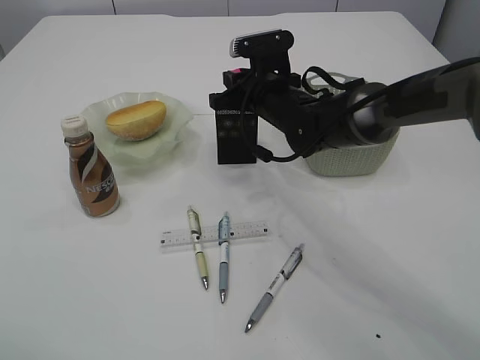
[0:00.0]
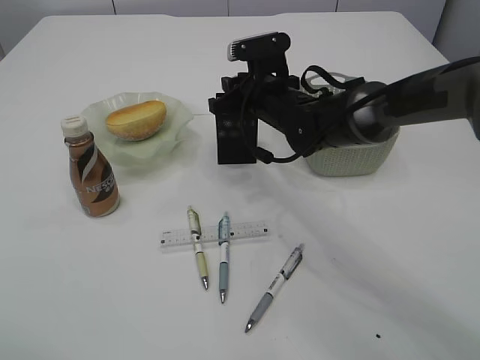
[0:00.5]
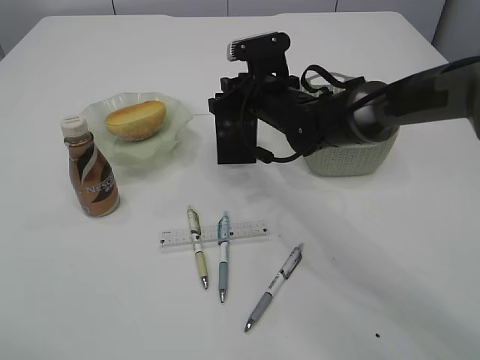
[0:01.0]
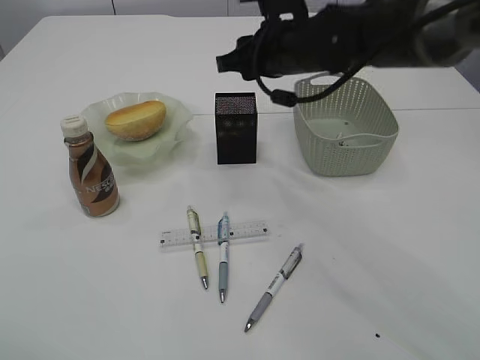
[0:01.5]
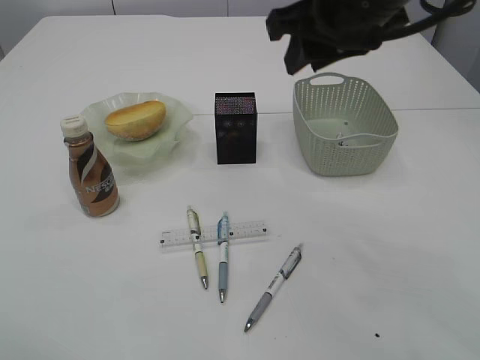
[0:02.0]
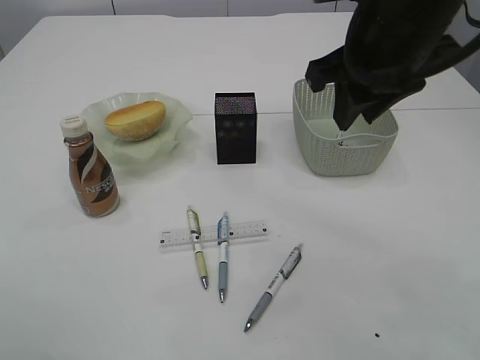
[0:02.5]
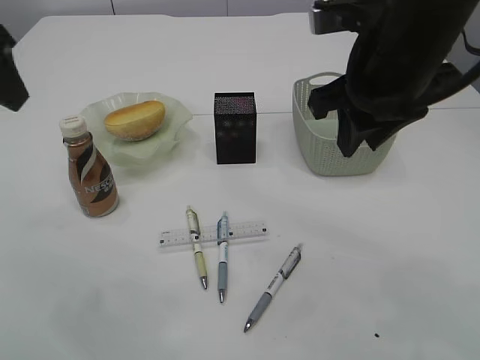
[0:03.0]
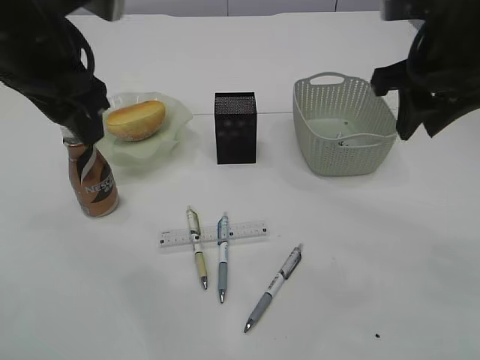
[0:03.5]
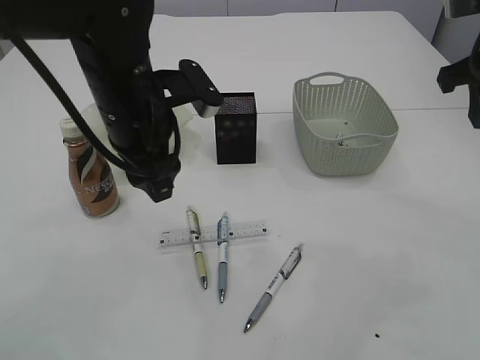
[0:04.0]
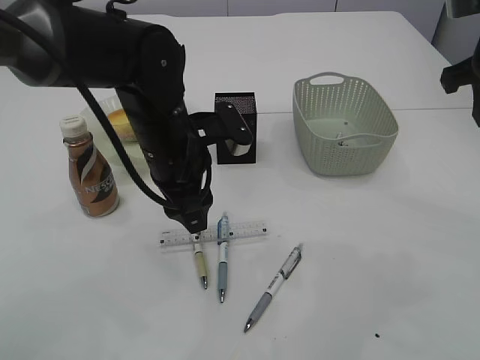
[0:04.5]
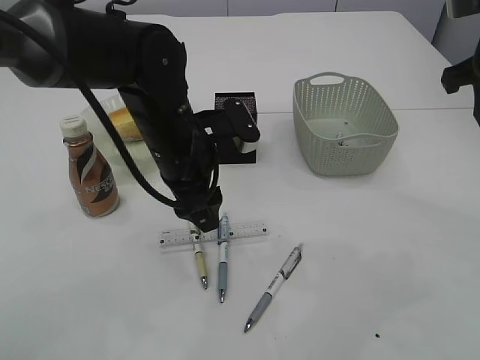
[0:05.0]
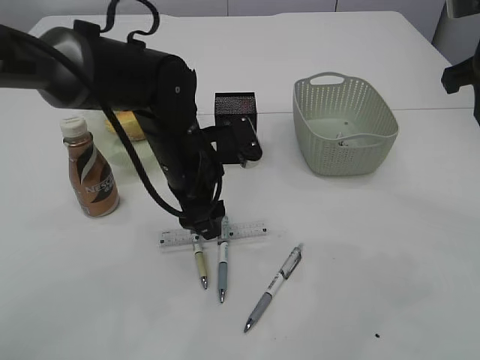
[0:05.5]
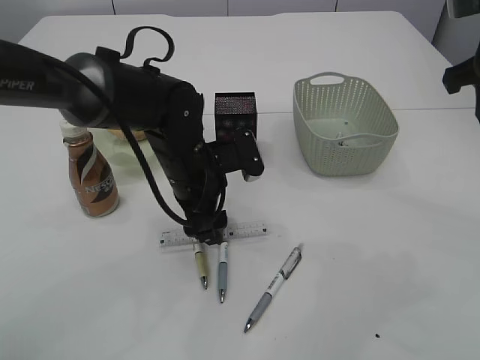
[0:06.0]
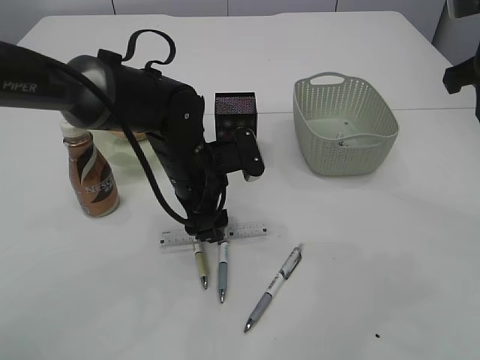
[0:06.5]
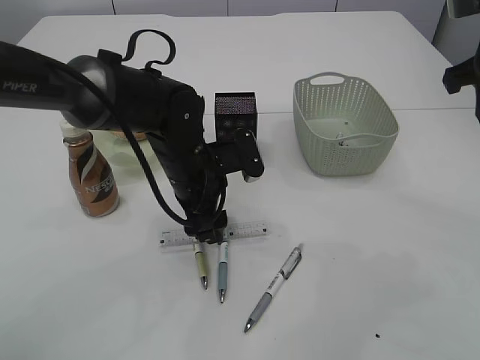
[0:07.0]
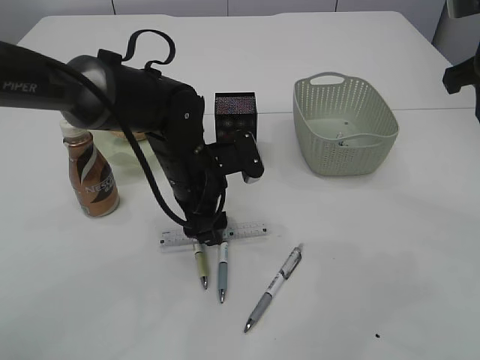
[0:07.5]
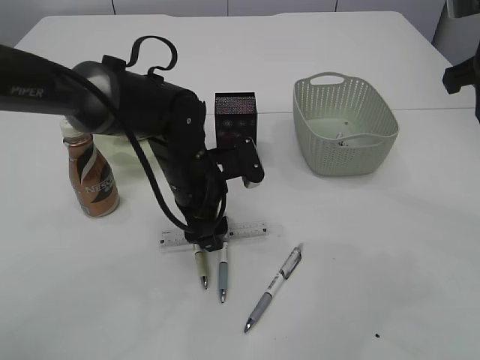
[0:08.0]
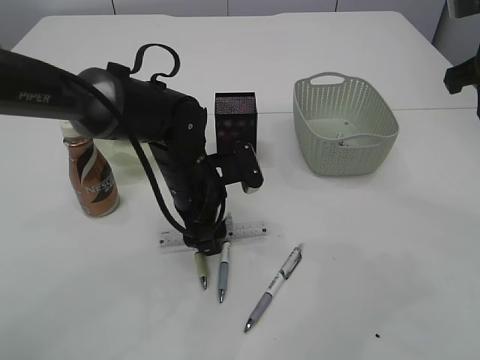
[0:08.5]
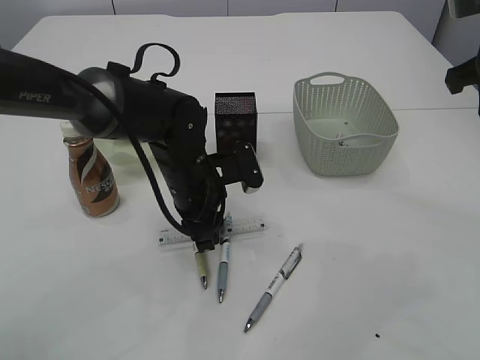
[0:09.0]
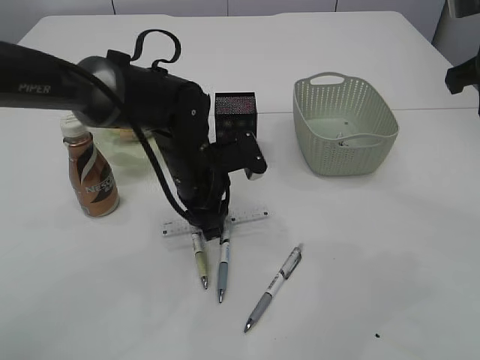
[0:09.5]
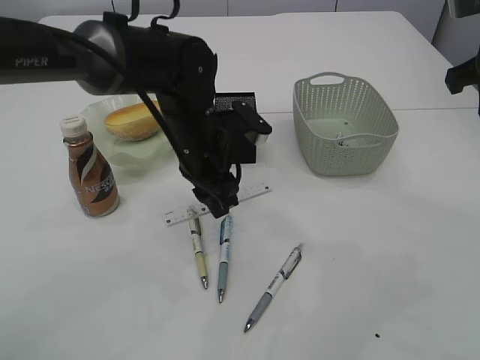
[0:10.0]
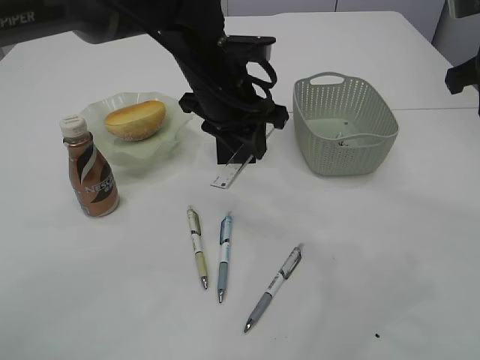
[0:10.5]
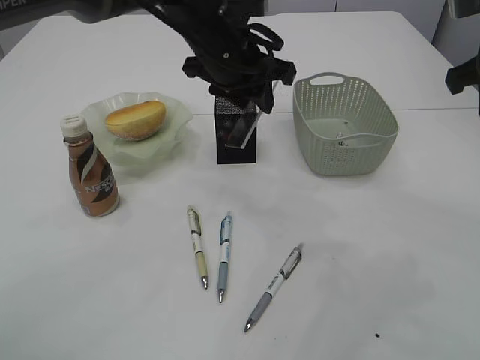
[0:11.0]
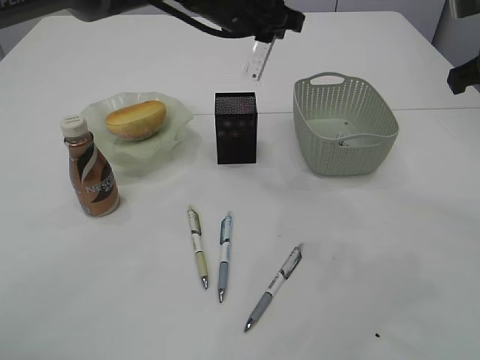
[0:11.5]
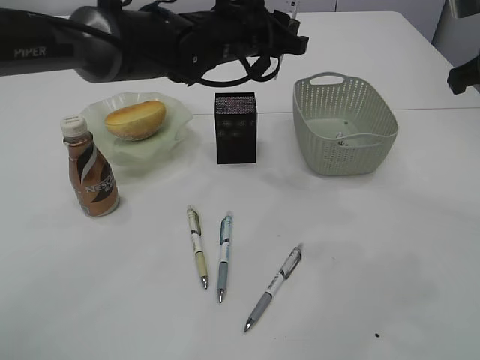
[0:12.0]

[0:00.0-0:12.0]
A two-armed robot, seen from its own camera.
Step, 2.0 to 10.0 s: pick up the ruler.
0.0 to 2.0 s: The right gripper goes approximately 20 cm upward and backward.
2.0 to 4.0 s: The left gripper travels to the right, forward and downward by roughly 25 cm. The right gripper shifts approximately 15 cm to the right.
4.0 to 6.0 s: The left gripper is displaced downward by some 10 cm.
6.0 to 8.0 s: Both grippers stay about where they are.
8.0 to 10.0 s: The left gripper closes.
10.0 to 12.0 s: The left gripper moves upward and forward, about 10 cm.

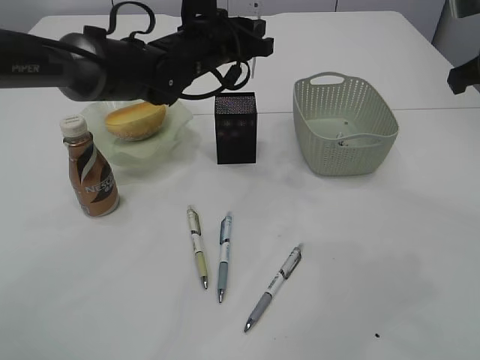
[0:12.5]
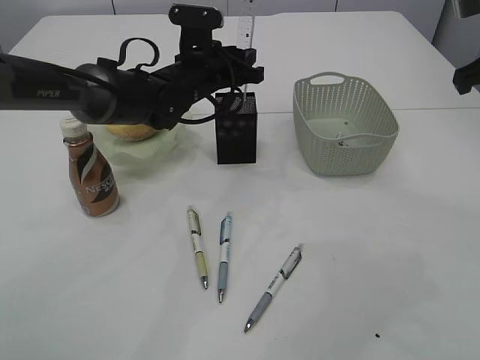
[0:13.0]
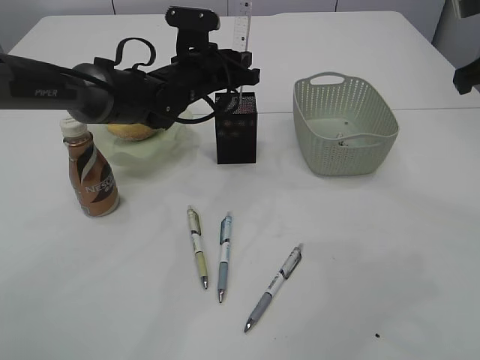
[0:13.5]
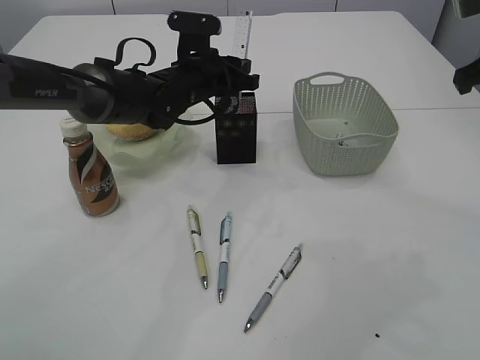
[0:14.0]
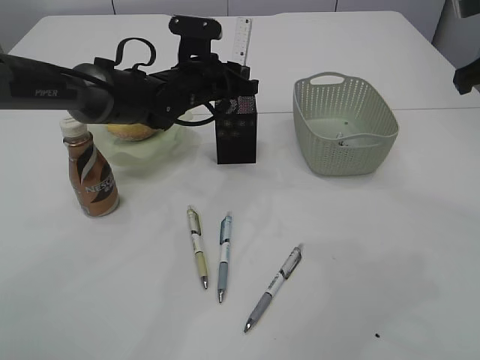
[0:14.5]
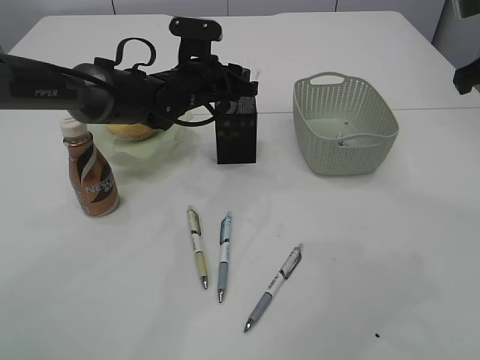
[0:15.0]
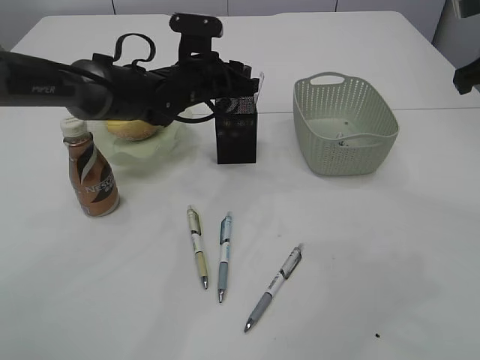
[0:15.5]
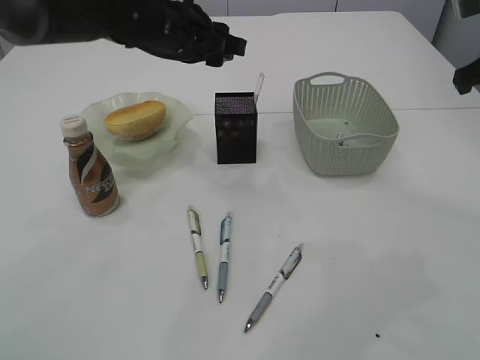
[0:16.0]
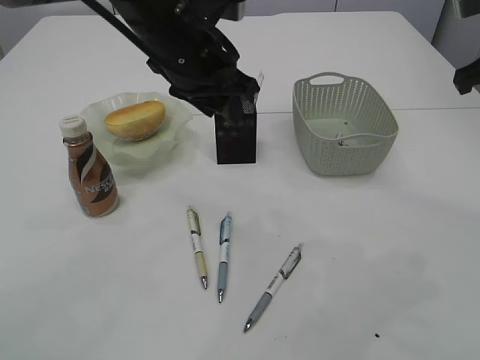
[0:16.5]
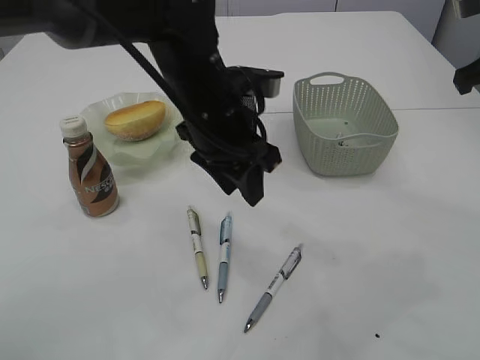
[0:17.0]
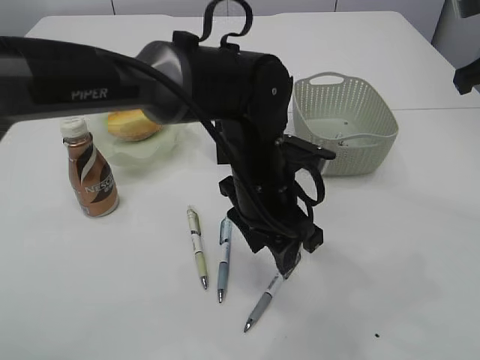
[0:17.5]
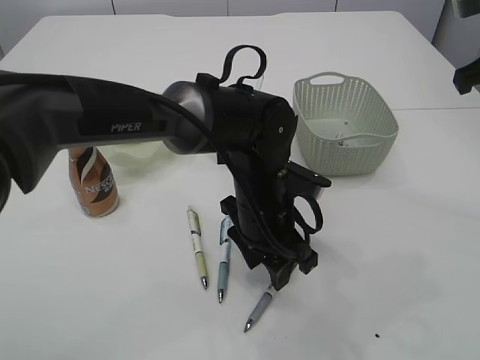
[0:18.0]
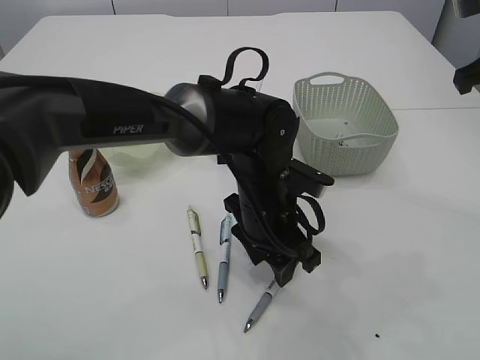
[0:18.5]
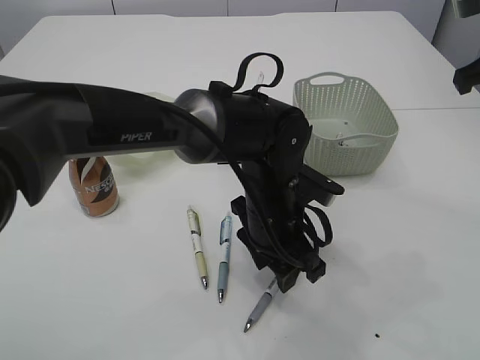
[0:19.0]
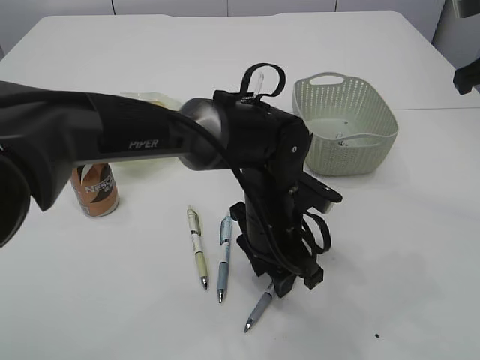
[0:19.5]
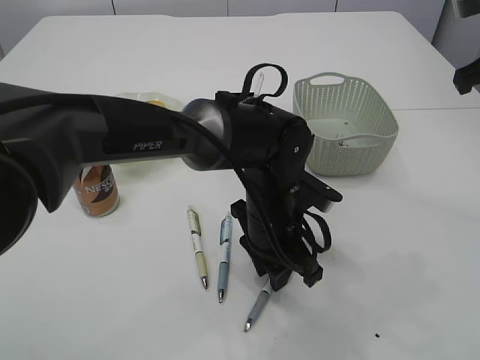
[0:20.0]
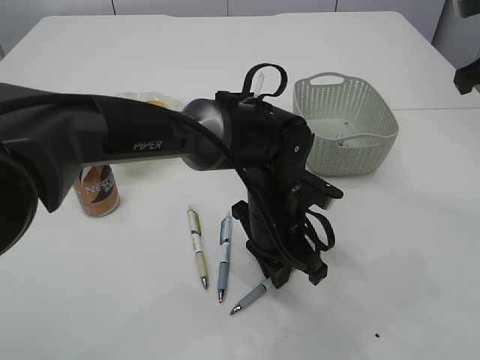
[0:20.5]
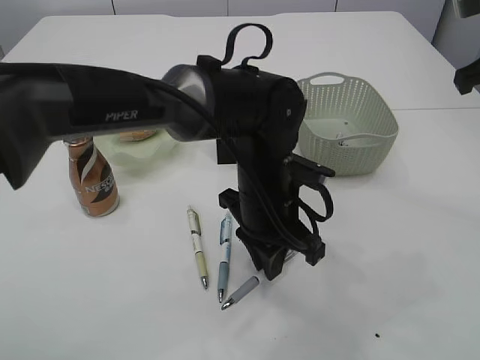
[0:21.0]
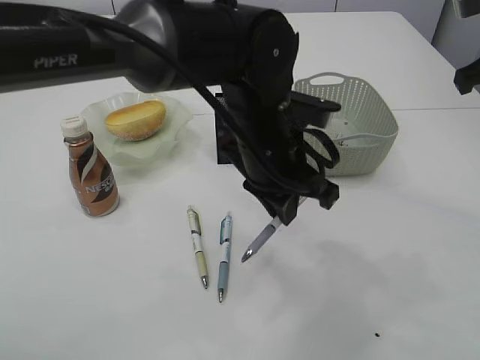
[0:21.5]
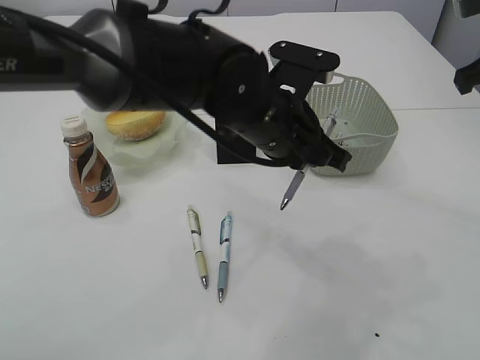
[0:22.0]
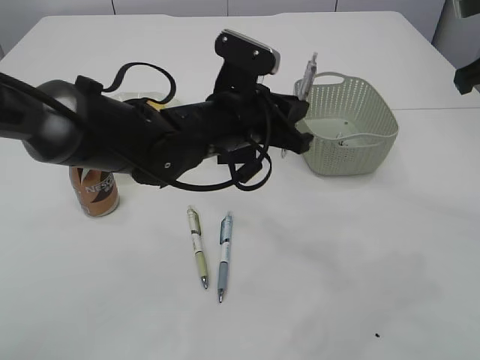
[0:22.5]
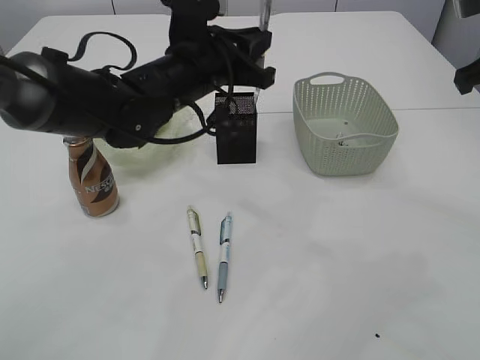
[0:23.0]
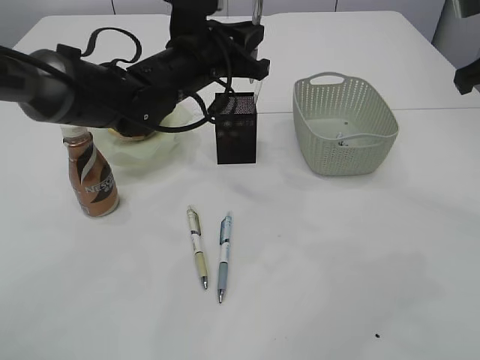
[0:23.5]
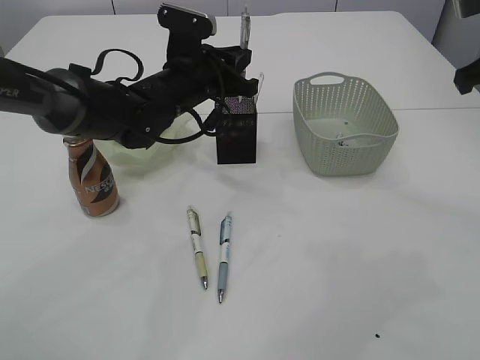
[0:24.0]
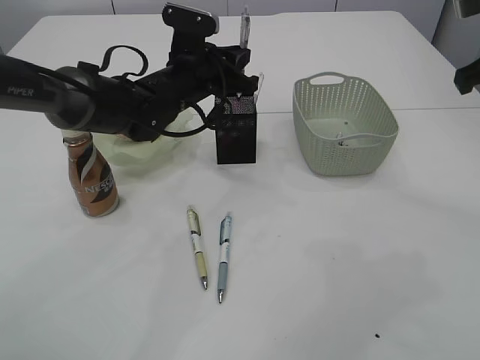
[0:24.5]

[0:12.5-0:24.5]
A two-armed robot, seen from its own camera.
Step, 12.5 to 15.5 s: Place the ruler into the pen holder.
Step, 16.0 to 21.0 s: Pick up the pen with left arm.
12.5 to 14.5 s: The left gripper goes approximately 5 cm downward.
14.5 to 16.5 s: The left gripper moves upward and backward, about 15 cm.
16.5 to 18.5 s: The left gripper heads downward, to the right and backward, covering roughly 20 cm.
18.5 to 20.5 s: The left gripper closes.
20.5 to 22.5 s: The left gripper heads upward and to the left, covering some 10 cm.
22.5 to 24.5 s: The left gripper is displaced forward and to the left by roughly 15 cm.

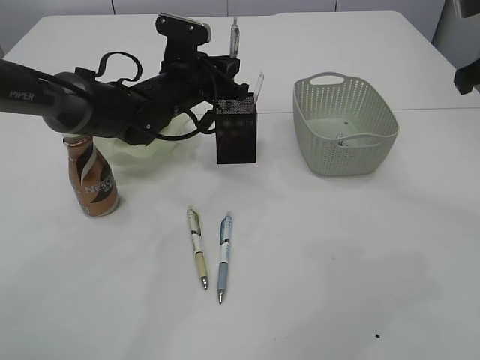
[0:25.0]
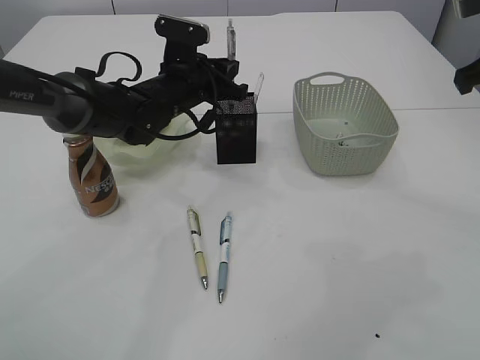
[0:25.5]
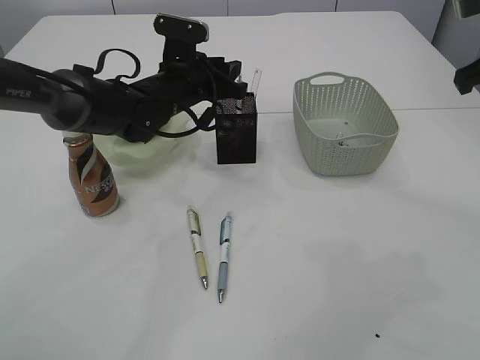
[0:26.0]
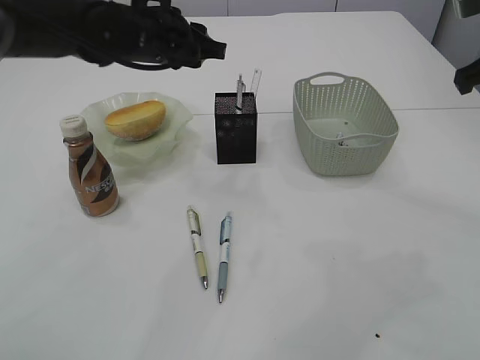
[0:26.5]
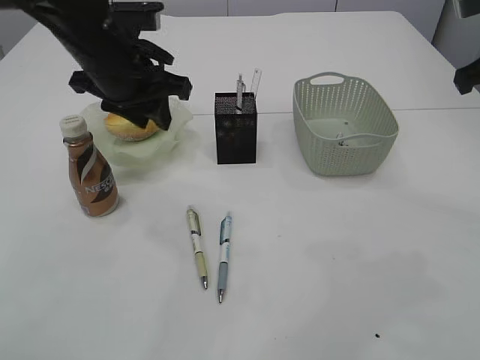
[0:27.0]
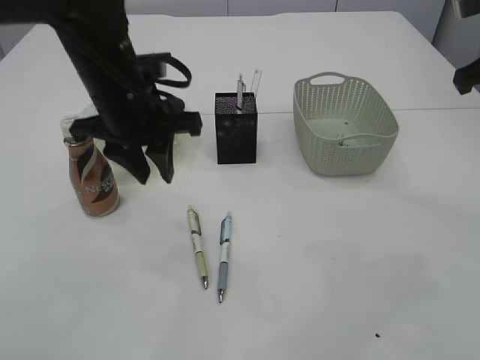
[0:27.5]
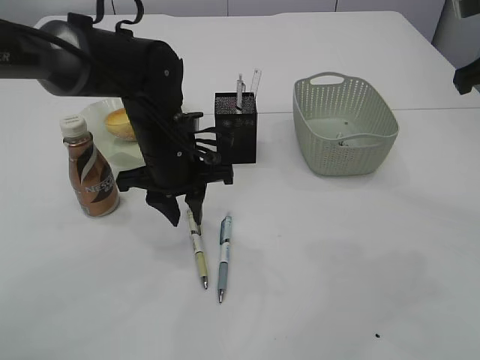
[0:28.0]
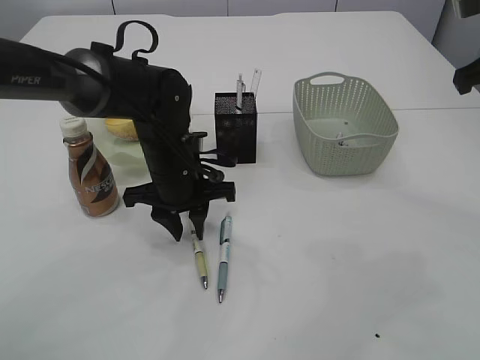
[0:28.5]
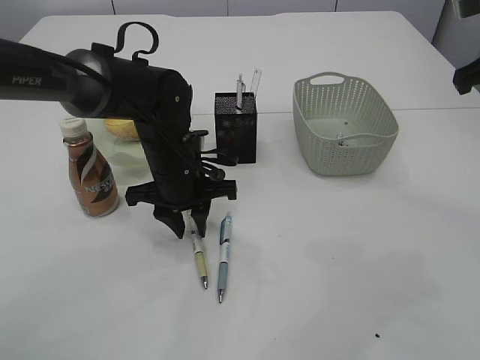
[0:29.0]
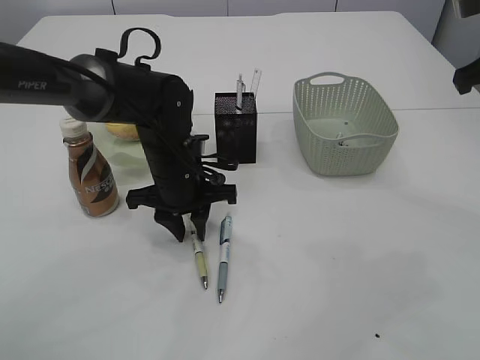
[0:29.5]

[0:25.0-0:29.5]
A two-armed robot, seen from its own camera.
25.0 to 27.0 s: The left gripper heads upward, backward and to the left, covering roughly 15 cm.
27.0 to 29.5 s: The left gripper heads downward, covering roughly 15 cm.
